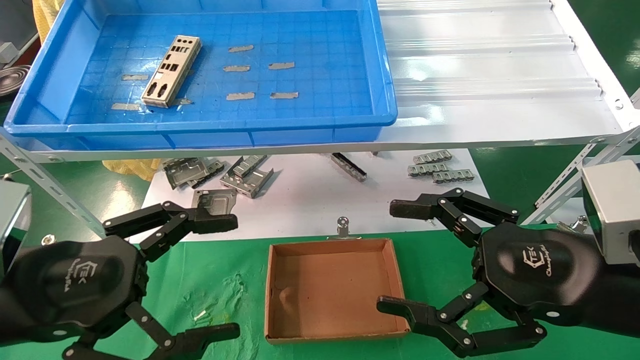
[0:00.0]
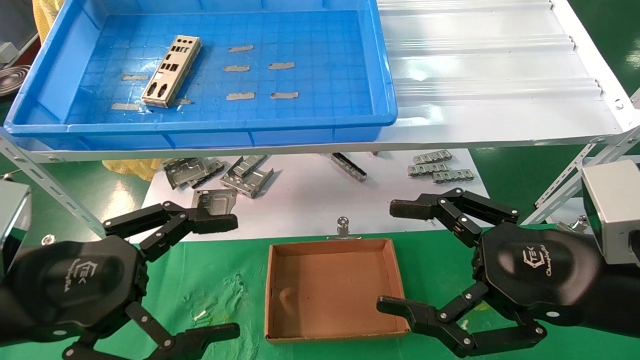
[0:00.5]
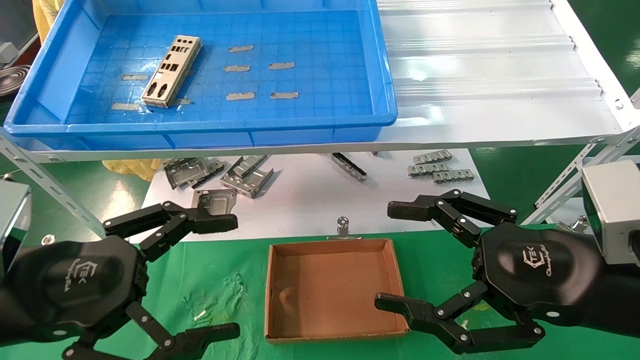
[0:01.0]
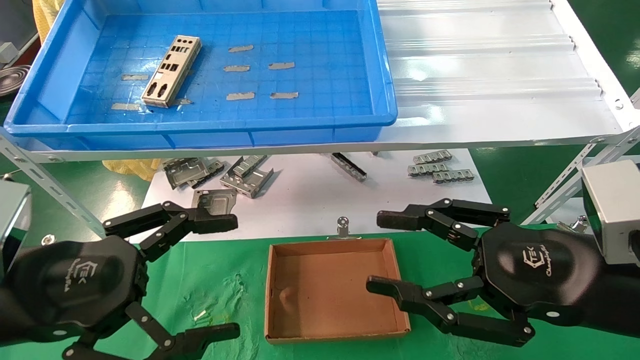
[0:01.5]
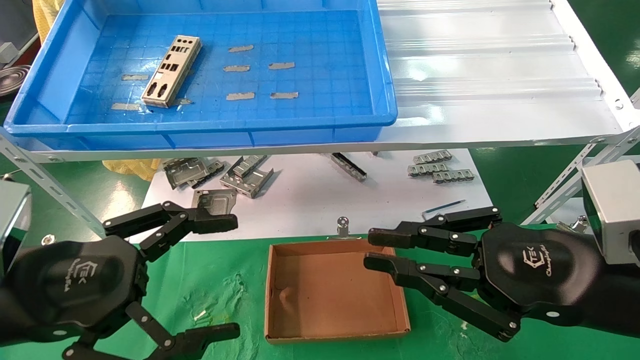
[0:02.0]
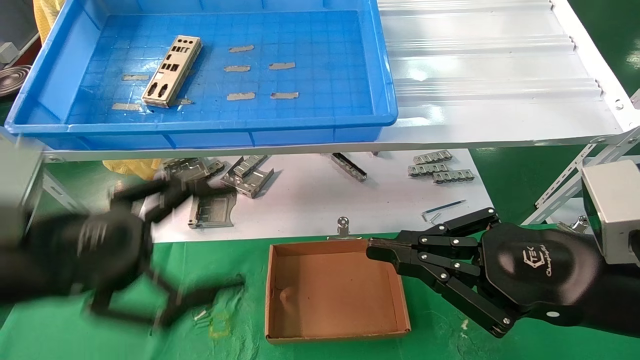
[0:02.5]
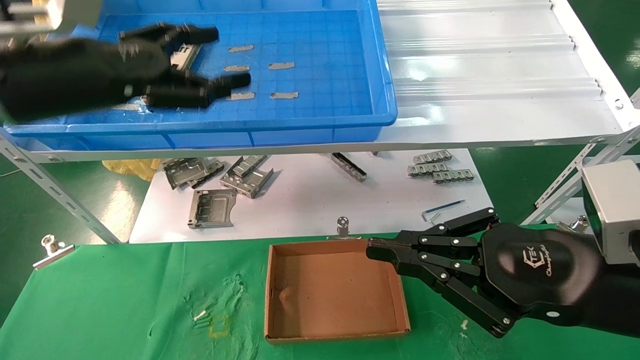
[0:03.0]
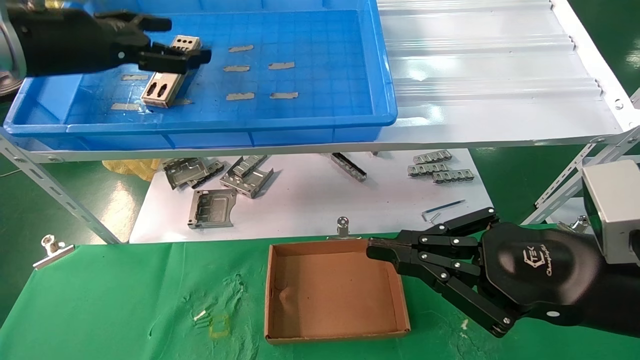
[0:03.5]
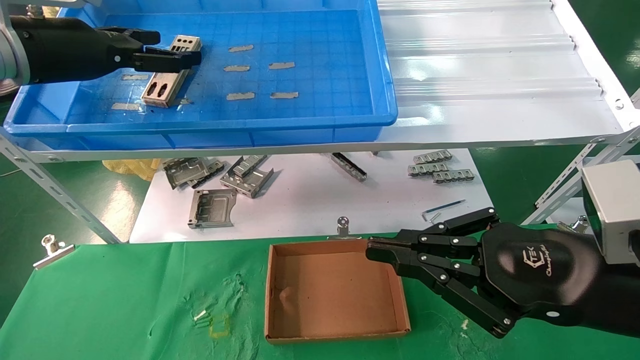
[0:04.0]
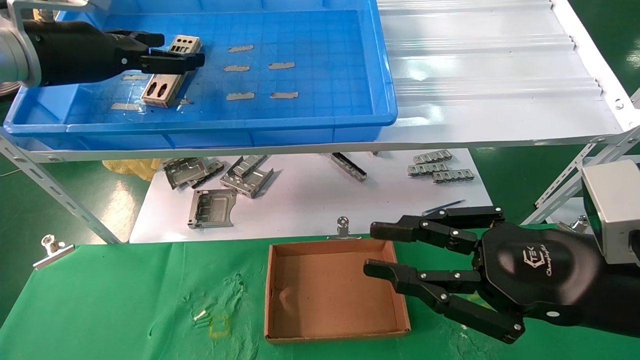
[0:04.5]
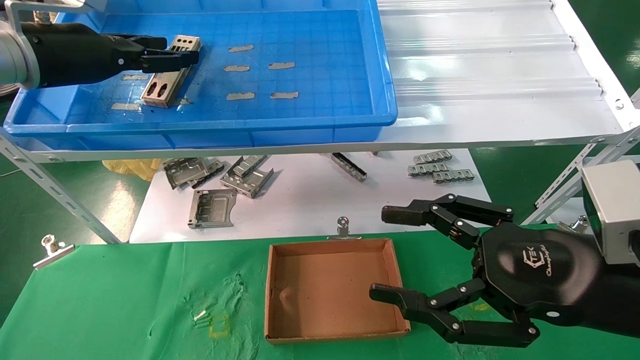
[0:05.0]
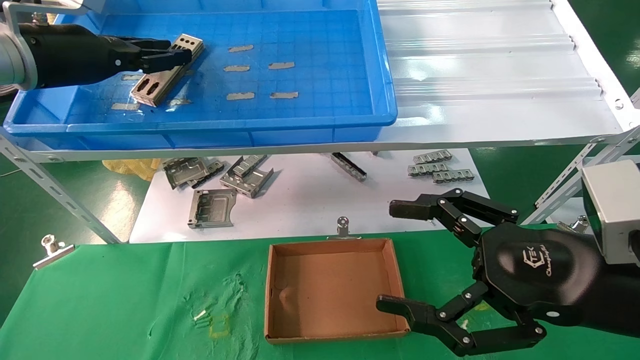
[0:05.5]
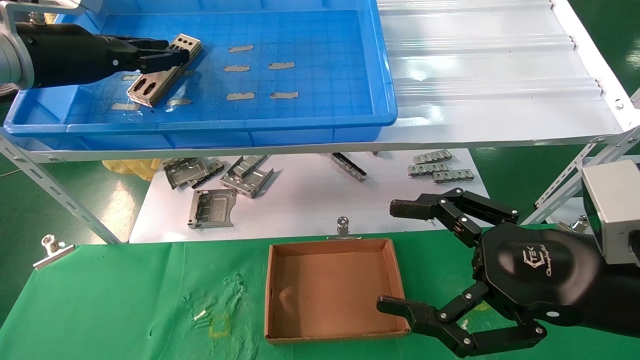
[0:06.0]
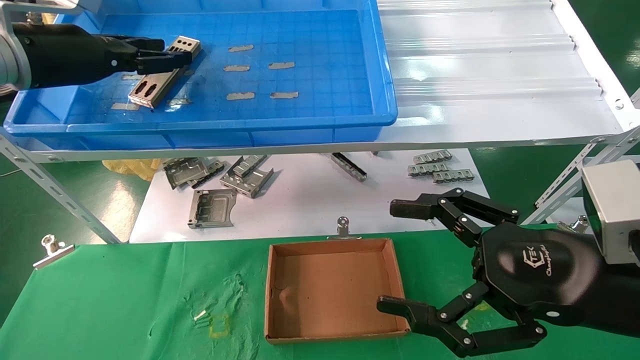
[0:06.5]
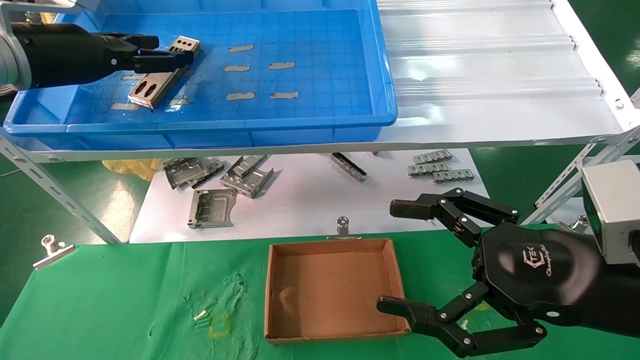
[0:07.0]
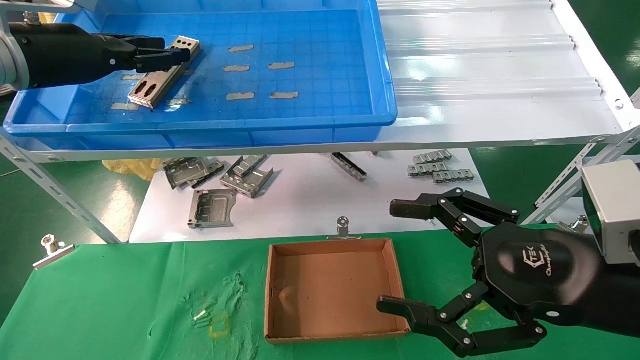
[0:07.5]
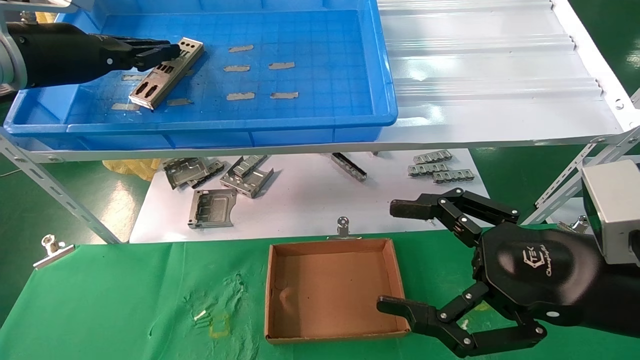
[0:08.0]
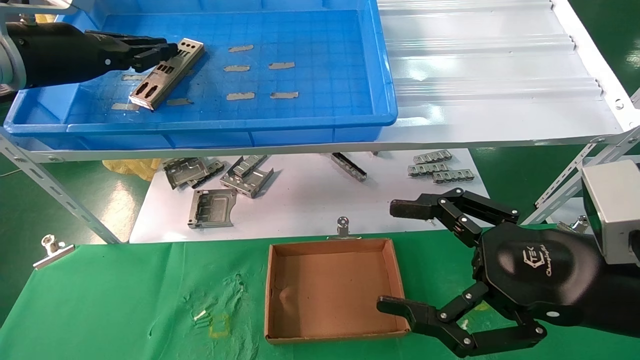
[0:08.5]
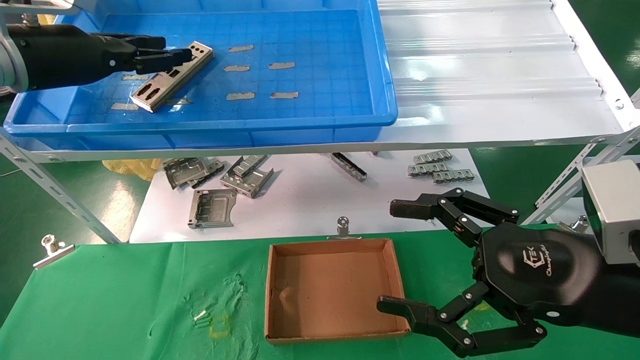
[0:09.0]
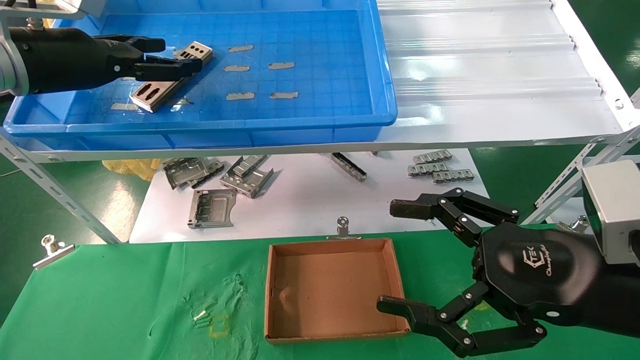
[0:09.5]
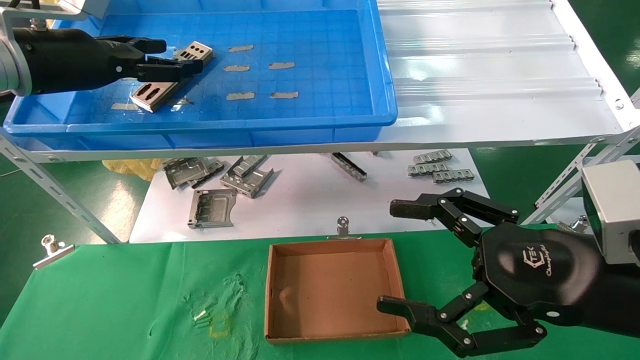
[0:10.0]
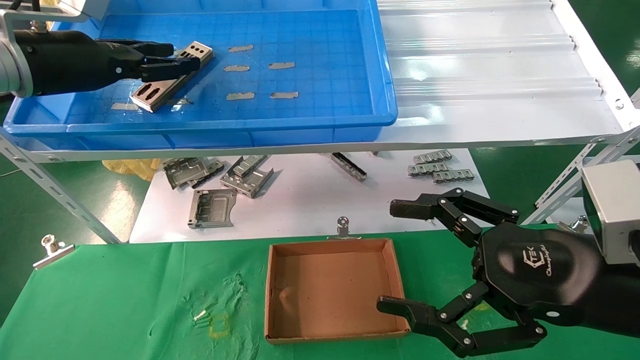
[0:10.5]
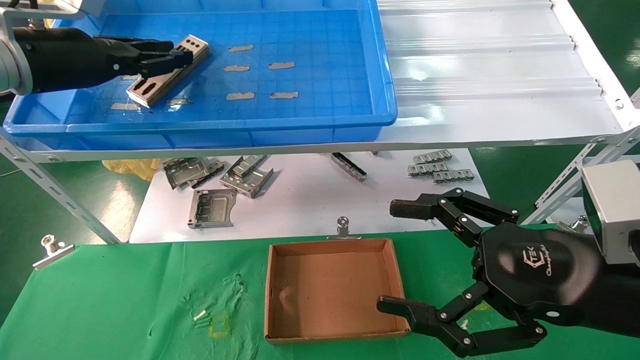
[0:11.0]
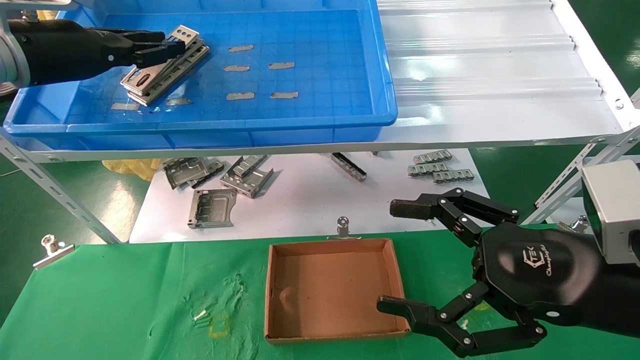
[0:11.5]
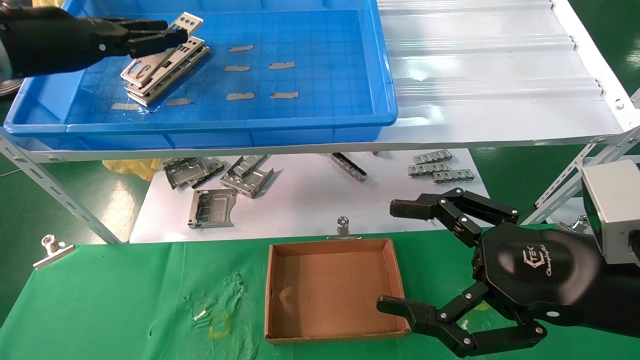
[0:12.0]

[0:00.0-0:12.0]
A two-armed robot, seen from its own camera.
Task of the whole recording: pick up the parts on the tray and put them in the cardboard box.
Step, 0:03.0 to 0:10.5: Pick up the IO bracket from the container box.
0:00.0 to 0:02.0: The right gripper closes.
0:02.0 to 0:04.0: The left gripper is displaced forward and upward by some 25 cm.
0:04.0 to 0:06.0: The left gripper closes its fingers; the right gripper opens up.
0:06.0 to 0:08.0: The left gripper opens and closes again.
0:08.0 to 0:10.0: The left gripper opens.
0:10.0 to 0:12.0: The left gripper closes.

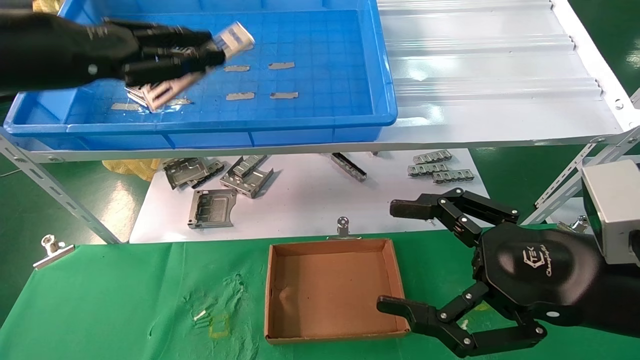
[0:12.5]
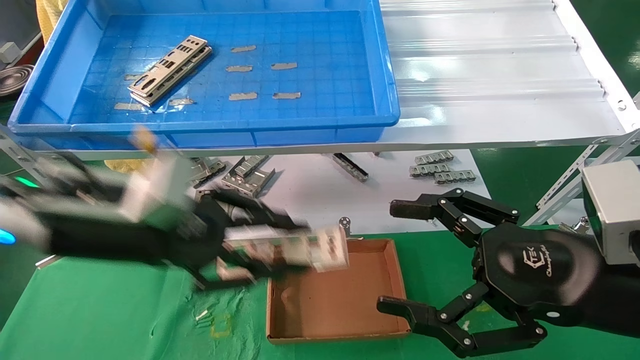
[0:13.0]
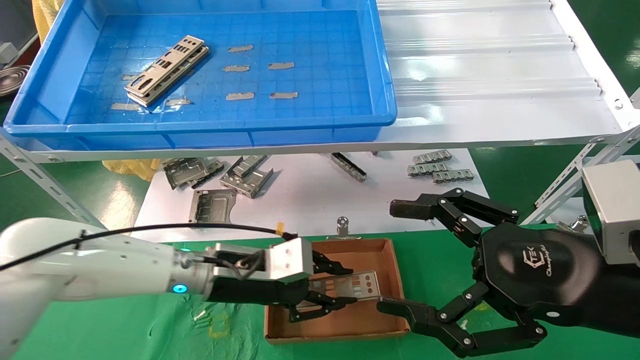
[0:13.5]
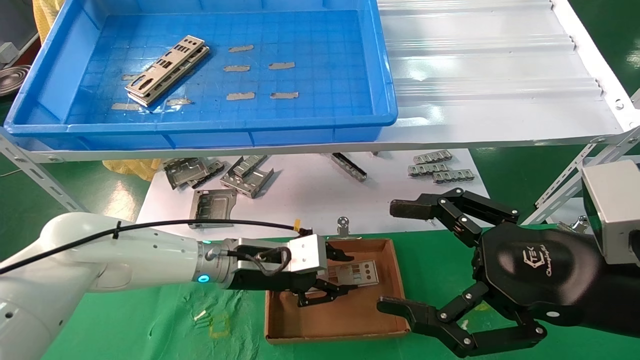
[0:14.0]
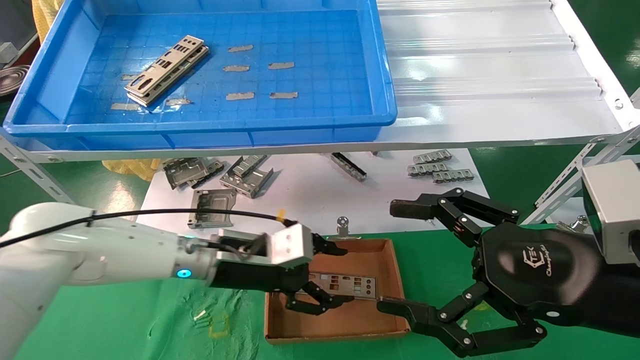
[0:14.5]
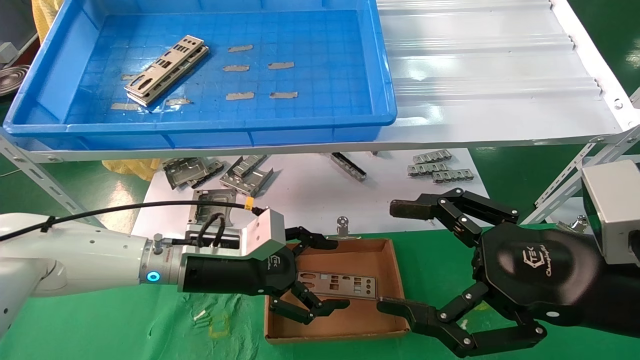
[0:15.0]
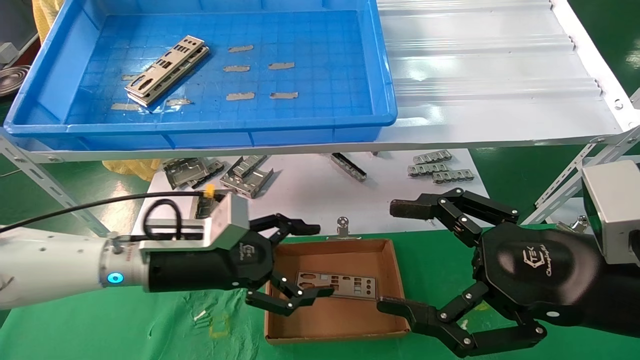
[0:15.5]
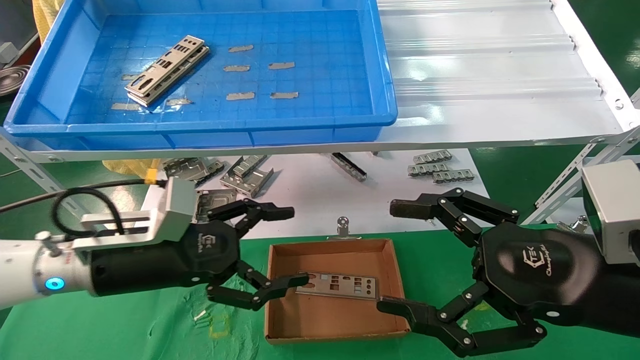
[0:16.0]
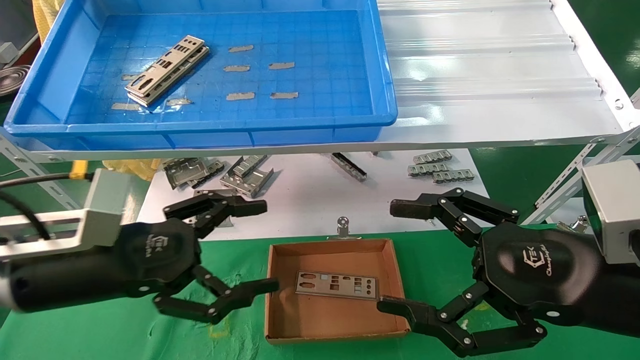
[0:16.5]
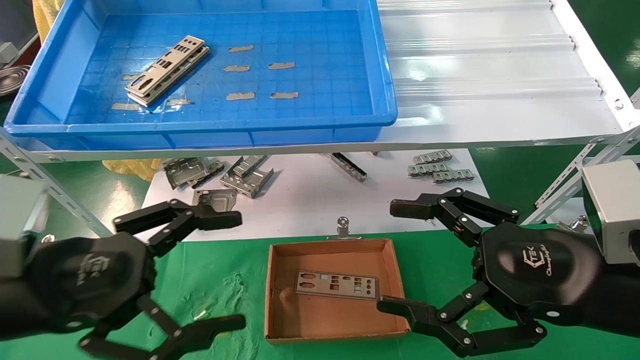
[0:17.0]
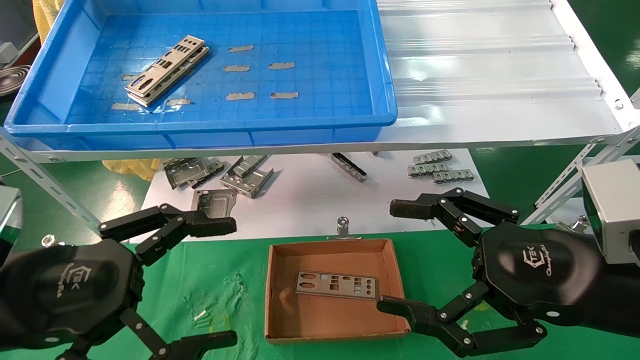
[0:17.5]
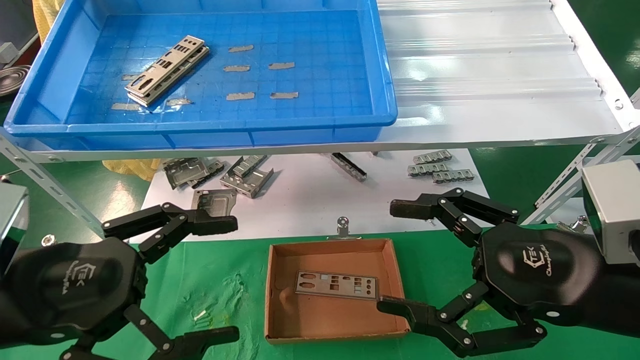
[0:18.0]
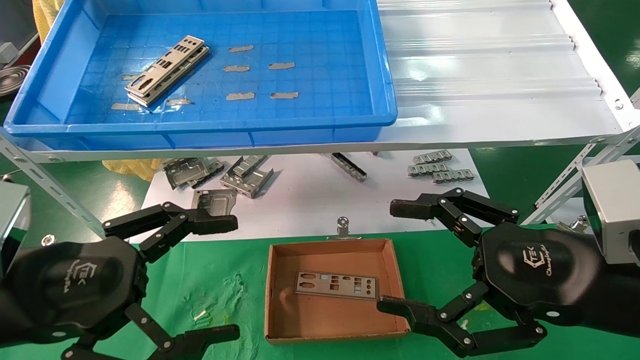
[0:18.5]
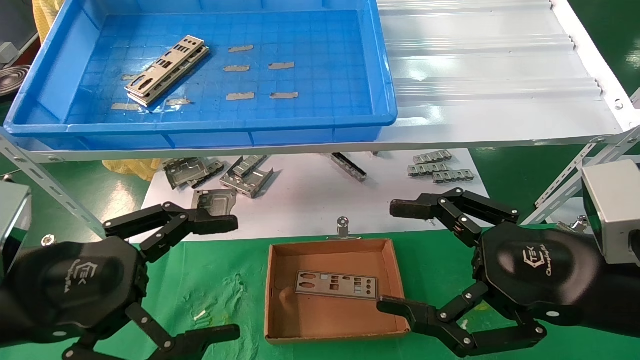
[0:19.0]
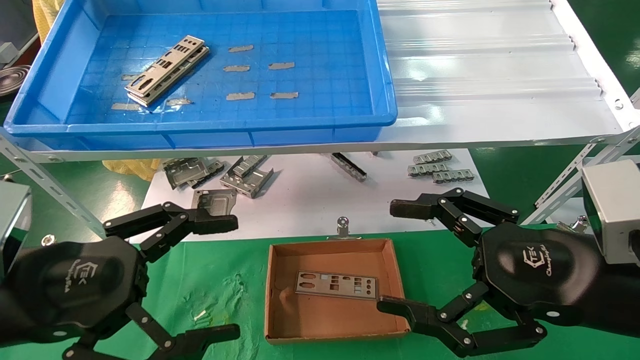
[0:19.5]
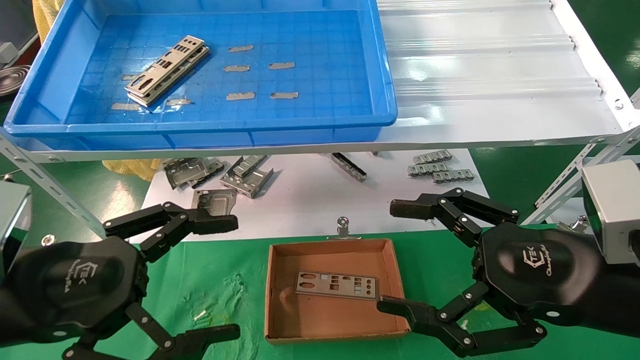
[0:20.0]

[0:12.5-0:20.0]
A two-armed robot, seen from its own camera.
Task of the whole recording: pick up the parts on the tray and put them in the cardboard box.
0:12.5 to 0:14.5: The left gripper heads downward and to the right, covering about 30 cm.
0:14.5 to 0:16.5: The left gripper moves backward, to the left and upward, roughly 20 cm, and opens up.
0:16.5 to 0:18.0: The left gripper shifts about 5 cm backward.
0:18.0 to 0:20.0: Both grippers stay about where they are.
